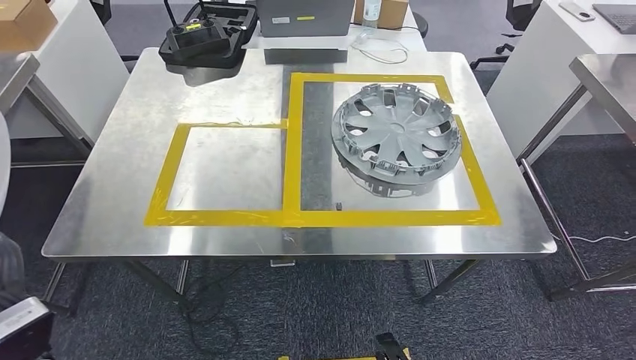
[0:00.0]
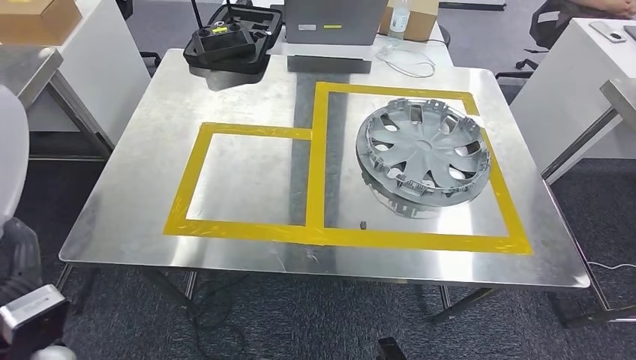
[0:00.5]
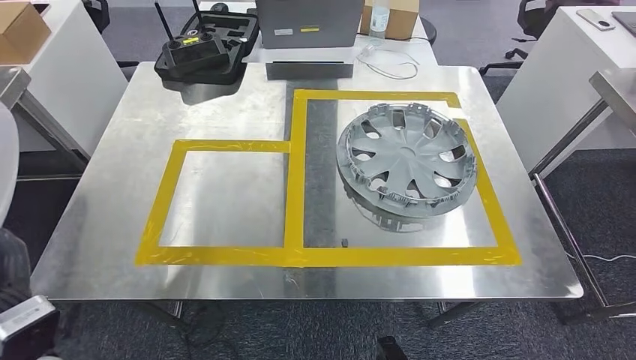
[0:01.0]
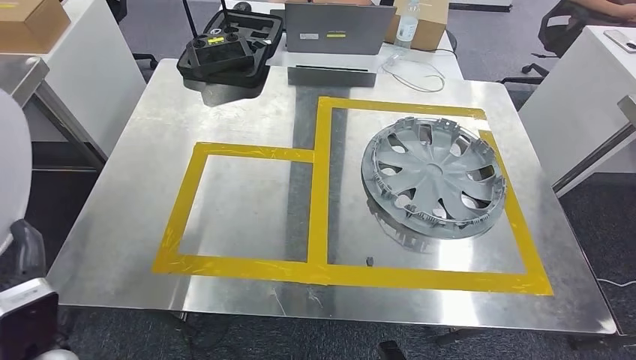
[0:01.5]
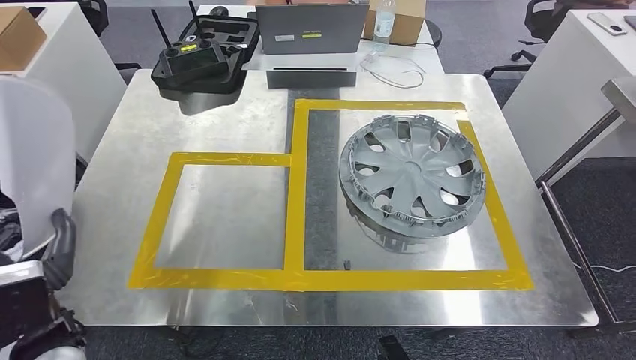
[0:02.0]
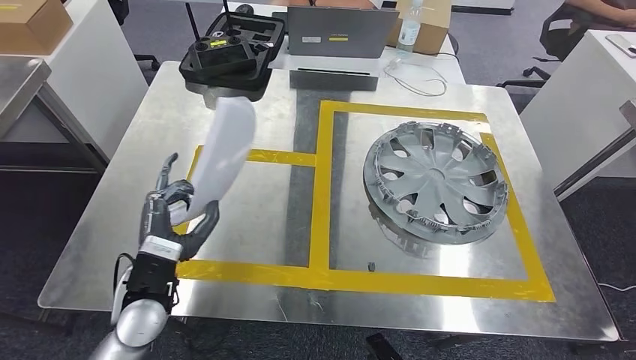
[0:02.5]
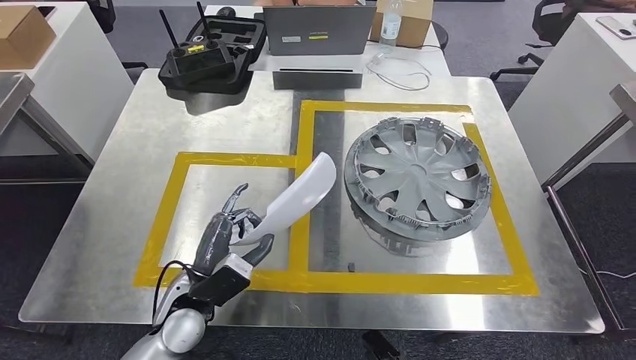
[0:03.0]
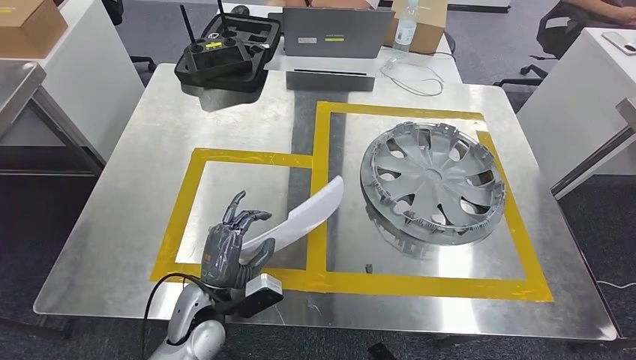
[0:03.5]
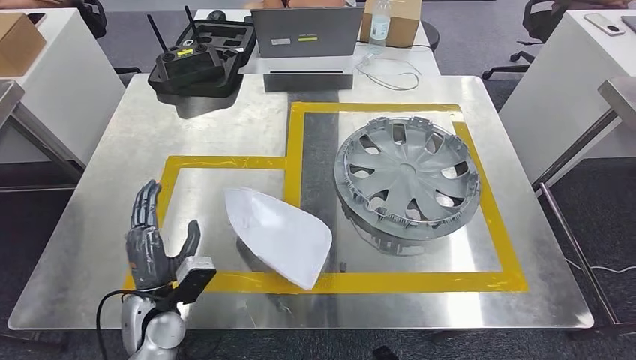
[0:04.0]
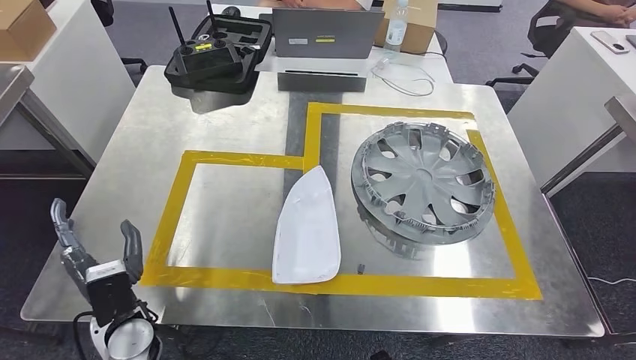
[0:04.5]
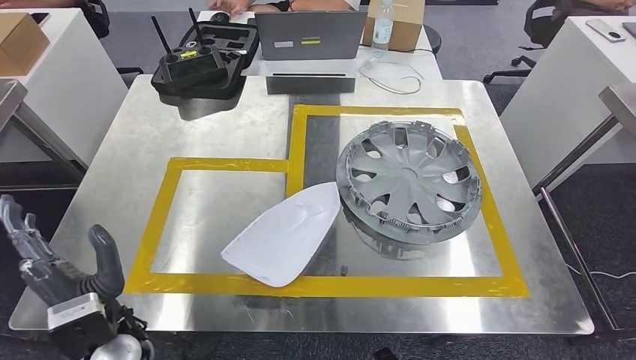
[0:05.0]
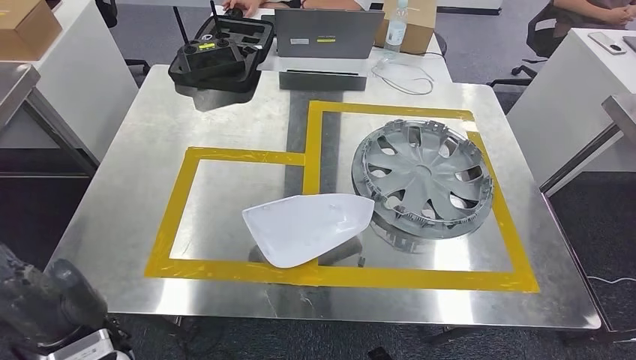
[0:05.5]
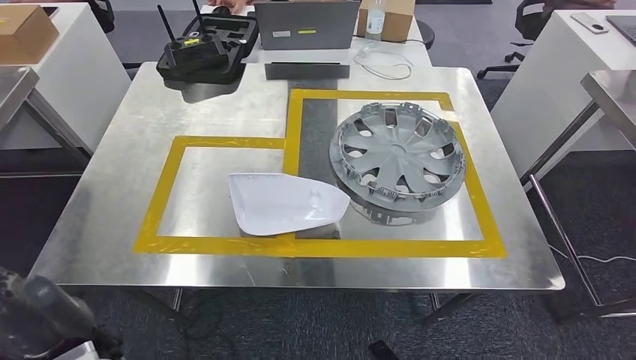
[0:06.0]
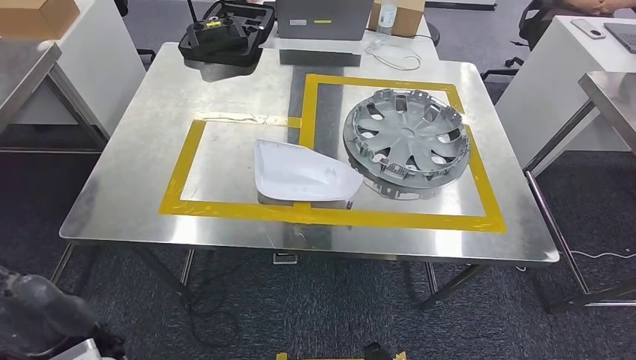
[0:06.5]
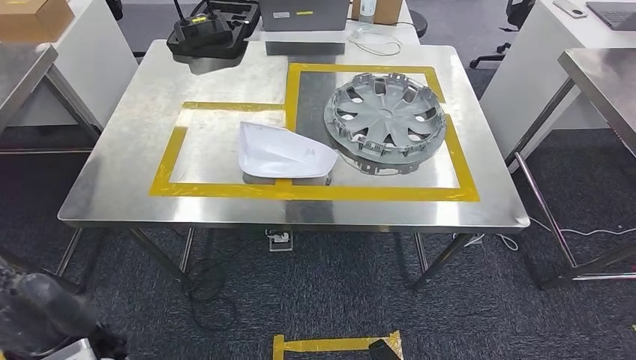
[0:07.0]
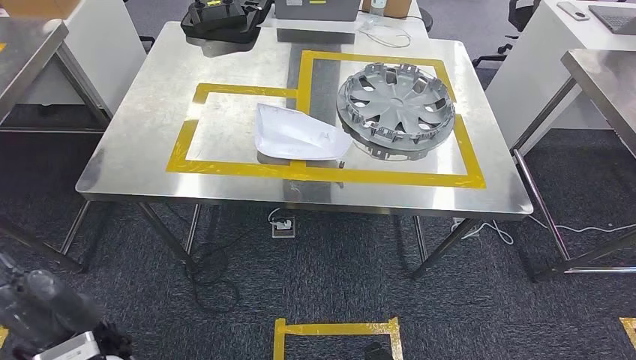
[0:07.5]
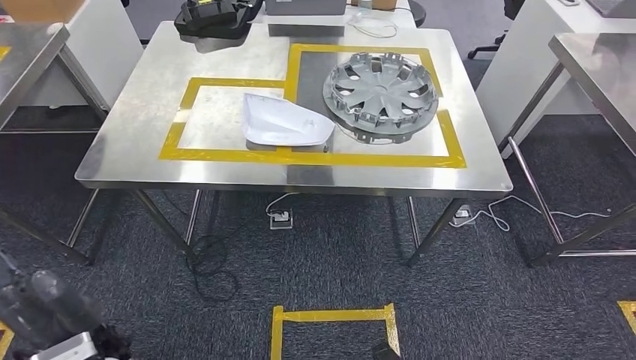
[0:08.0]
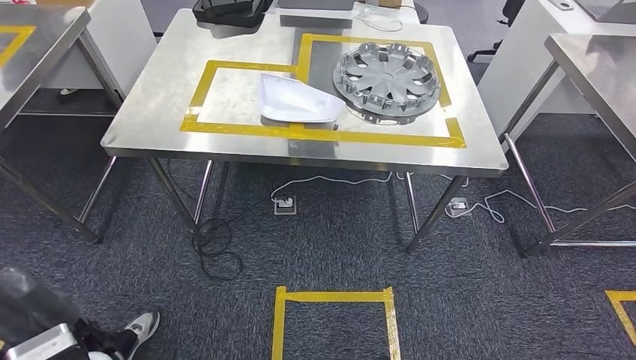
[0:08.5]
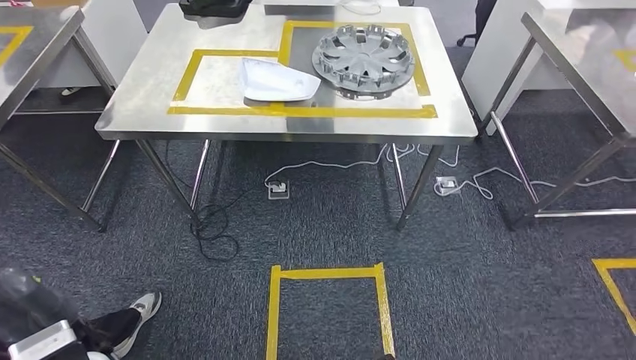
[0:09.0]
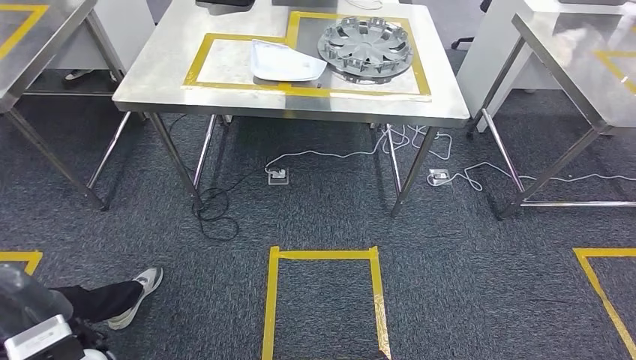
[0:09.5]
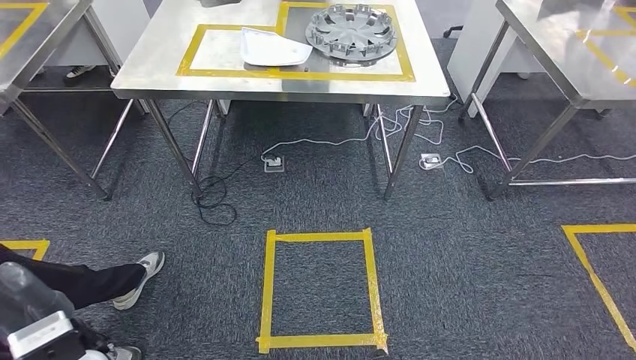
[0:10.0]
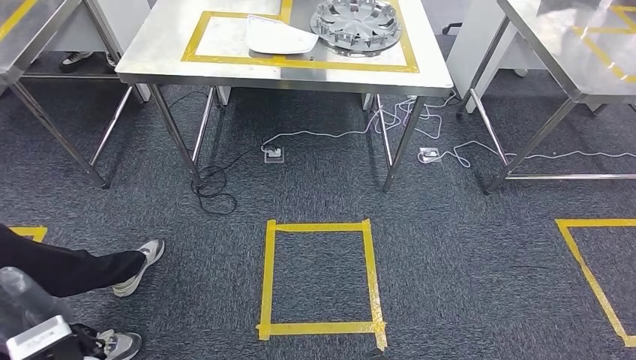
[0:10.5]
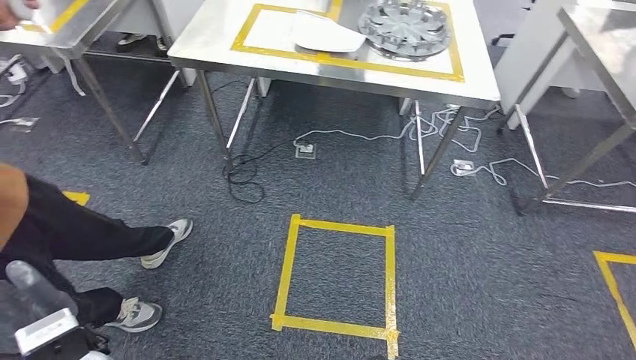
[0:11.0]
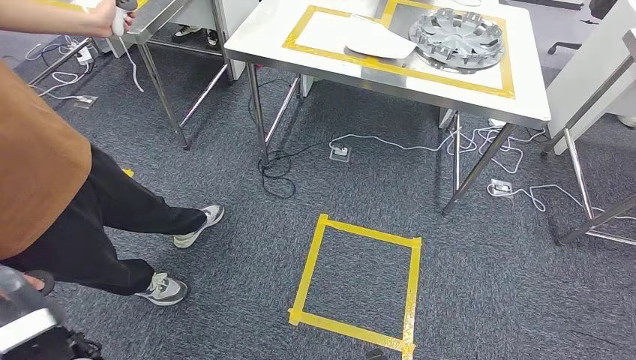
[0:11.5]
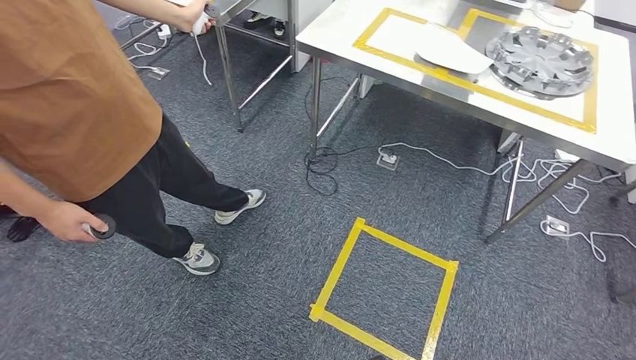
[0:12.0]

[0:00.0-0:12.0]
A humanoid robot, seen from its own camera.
Step, 0:00.0 to 0:06.0: Insert the small component into the corresponding slot on the workbench.

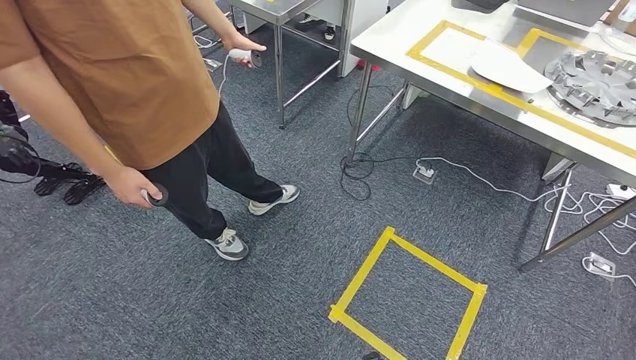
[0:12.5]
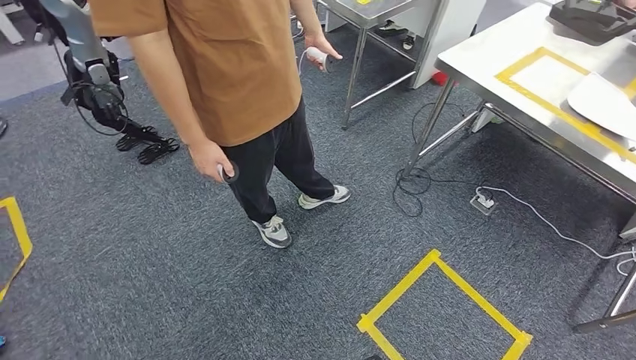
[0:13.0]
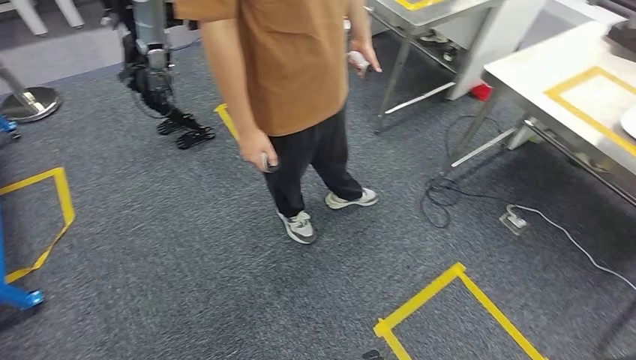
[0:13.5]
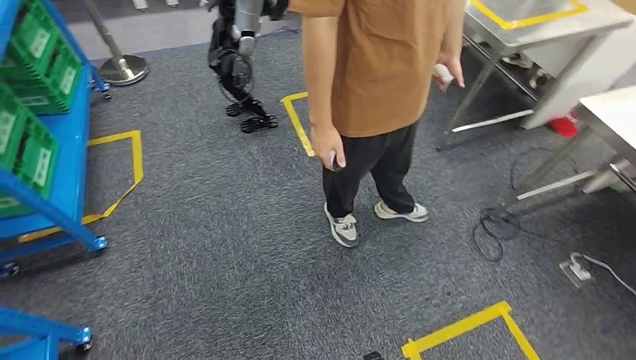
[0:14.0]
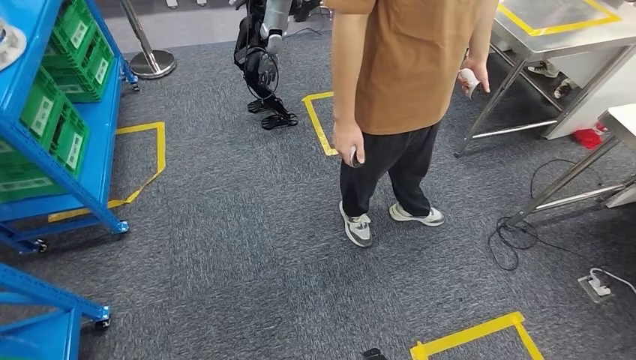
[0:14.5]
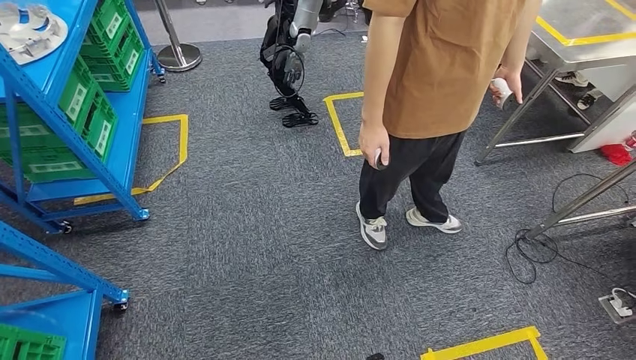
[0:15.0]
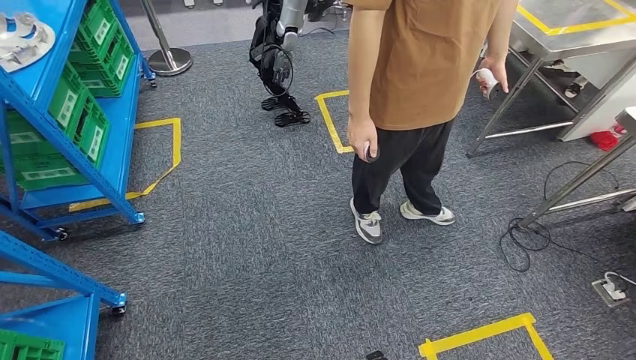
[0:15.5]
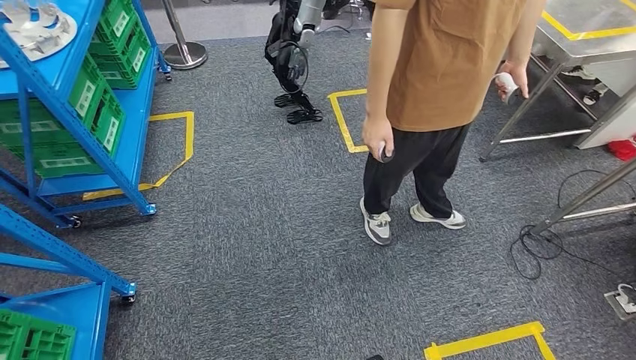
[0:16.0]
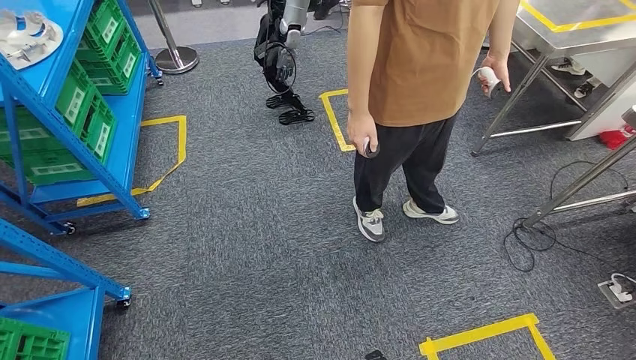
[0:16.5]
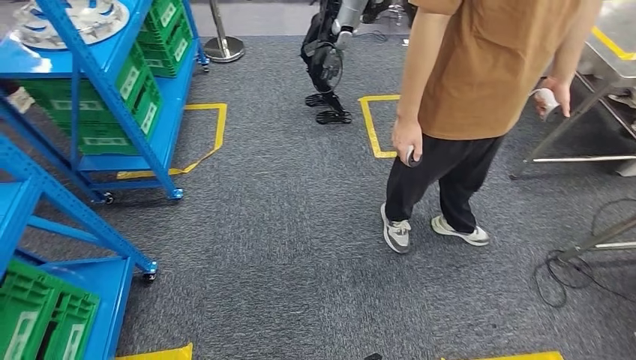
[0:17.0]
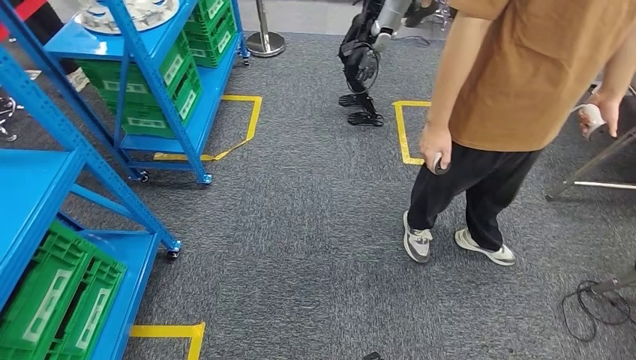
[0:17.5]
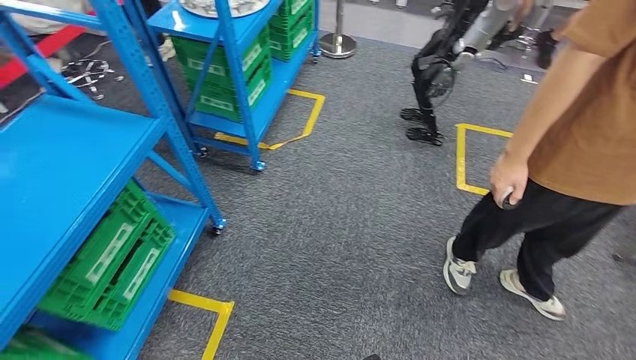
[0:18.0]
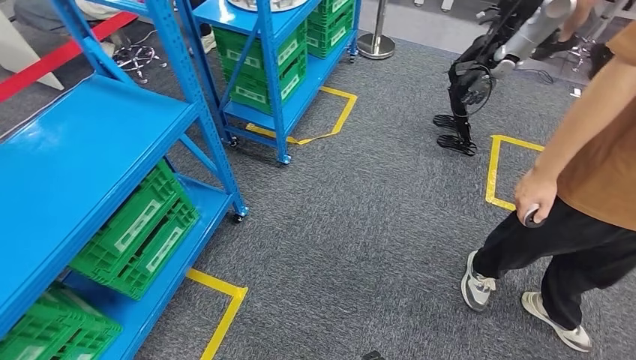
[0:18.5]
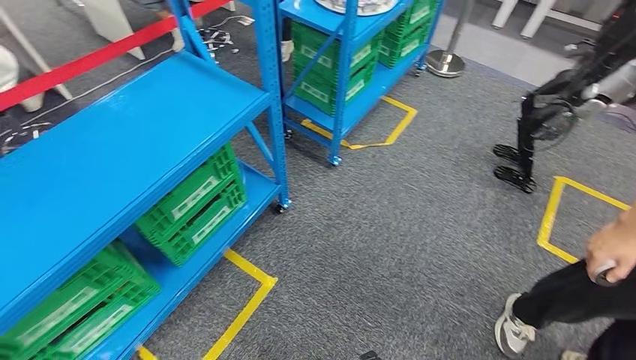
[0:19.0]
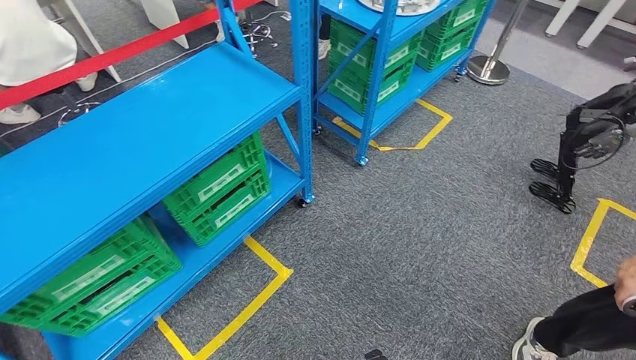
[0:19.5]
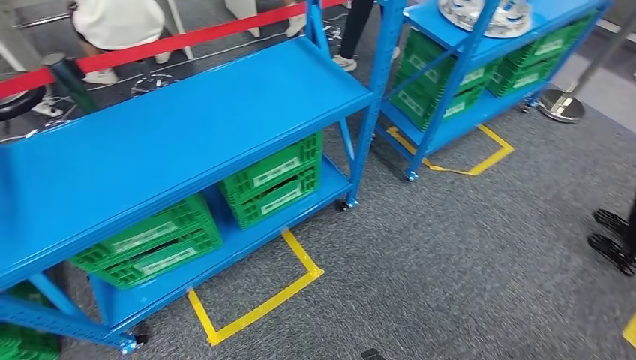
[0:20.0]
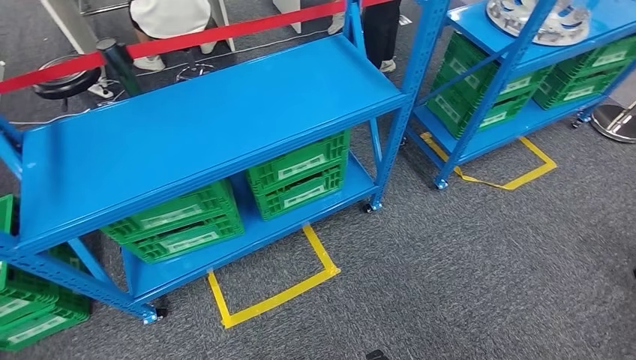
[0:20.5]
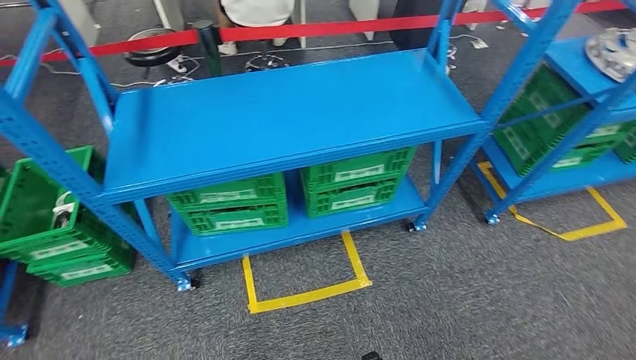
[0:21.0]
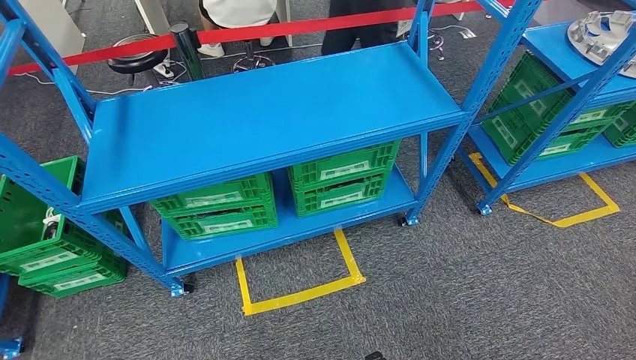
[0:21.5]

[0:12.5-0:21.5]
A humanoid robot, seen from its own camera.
Step, 0:12.5 to 0:21.5: Move to the initial position of the workbench.
